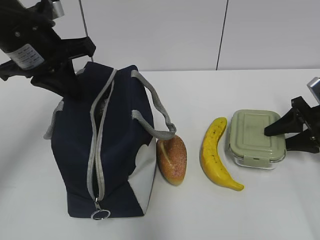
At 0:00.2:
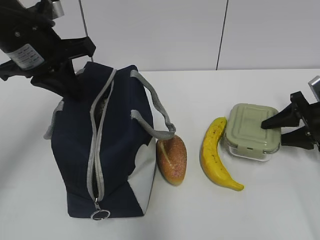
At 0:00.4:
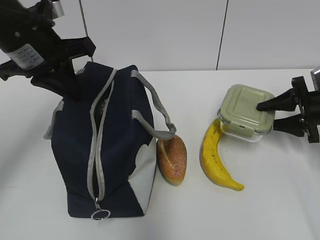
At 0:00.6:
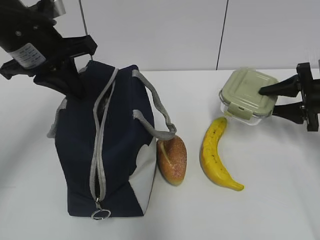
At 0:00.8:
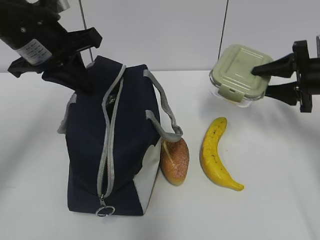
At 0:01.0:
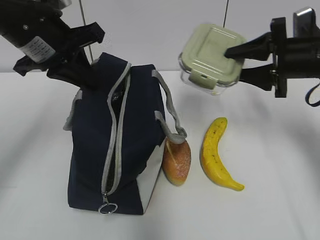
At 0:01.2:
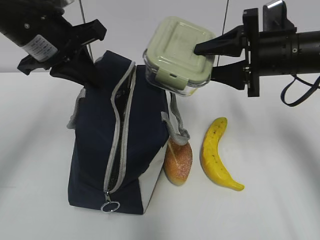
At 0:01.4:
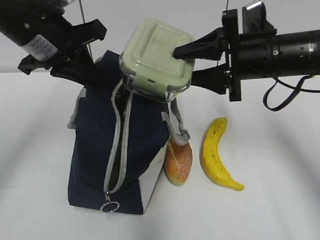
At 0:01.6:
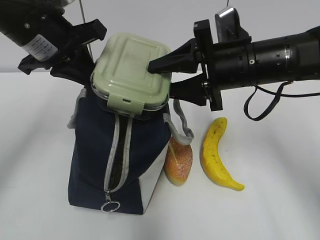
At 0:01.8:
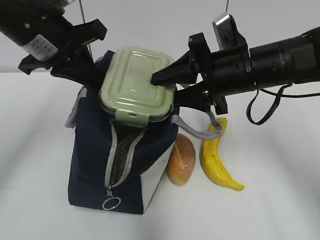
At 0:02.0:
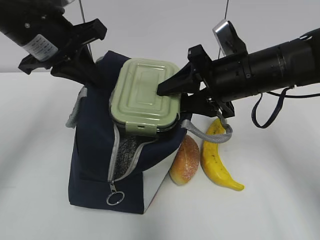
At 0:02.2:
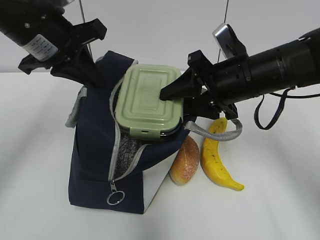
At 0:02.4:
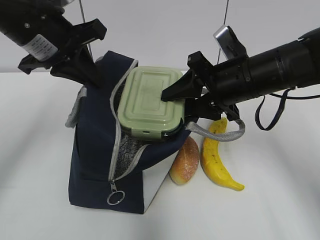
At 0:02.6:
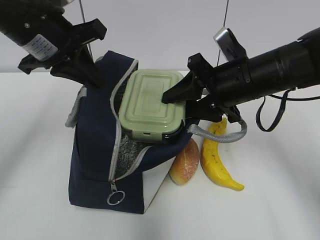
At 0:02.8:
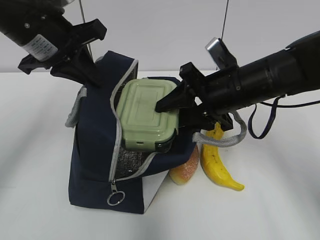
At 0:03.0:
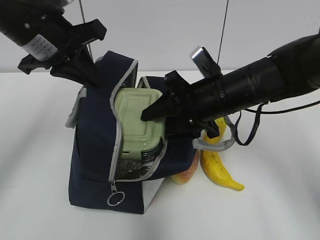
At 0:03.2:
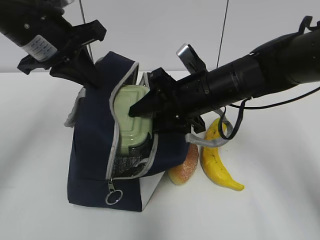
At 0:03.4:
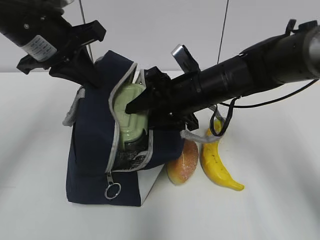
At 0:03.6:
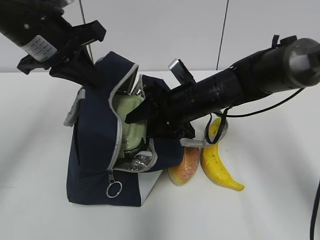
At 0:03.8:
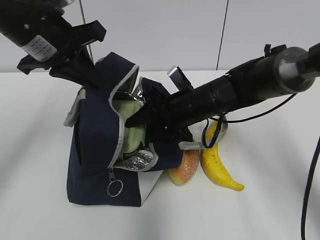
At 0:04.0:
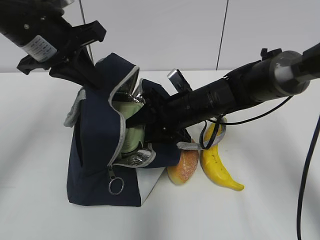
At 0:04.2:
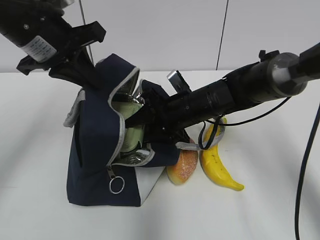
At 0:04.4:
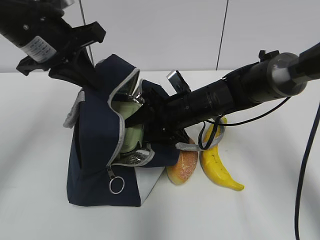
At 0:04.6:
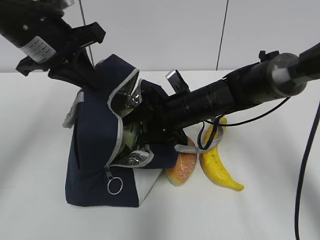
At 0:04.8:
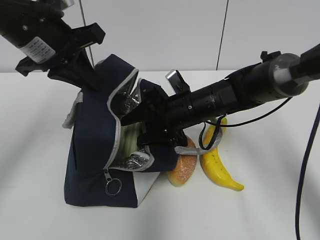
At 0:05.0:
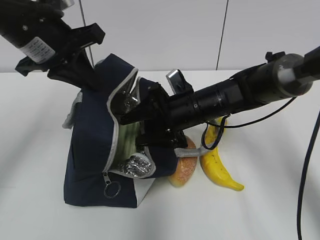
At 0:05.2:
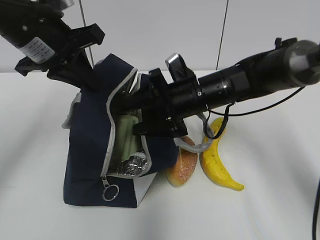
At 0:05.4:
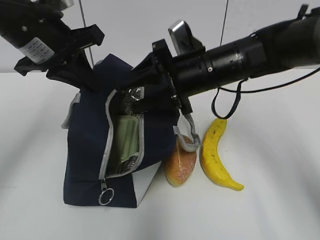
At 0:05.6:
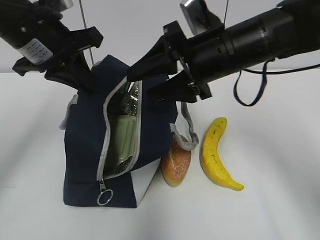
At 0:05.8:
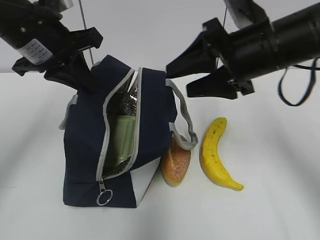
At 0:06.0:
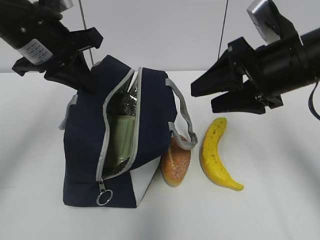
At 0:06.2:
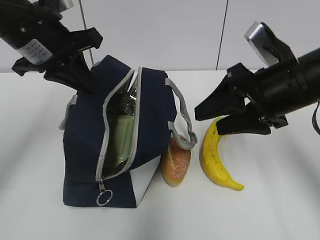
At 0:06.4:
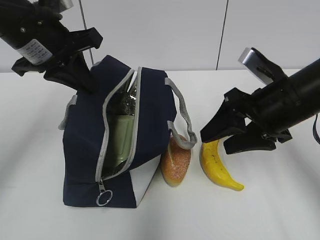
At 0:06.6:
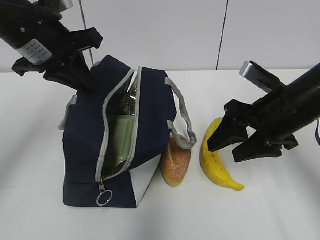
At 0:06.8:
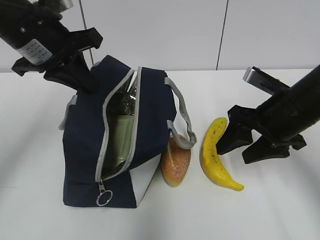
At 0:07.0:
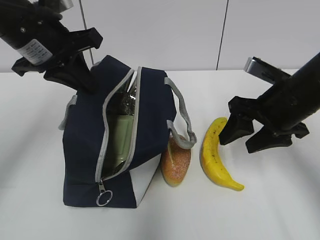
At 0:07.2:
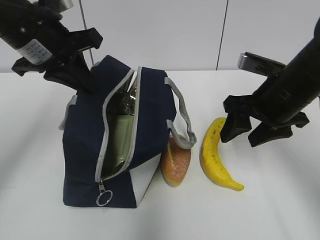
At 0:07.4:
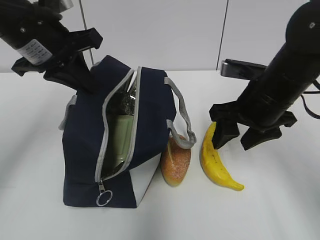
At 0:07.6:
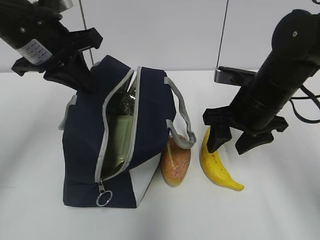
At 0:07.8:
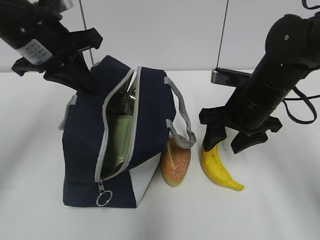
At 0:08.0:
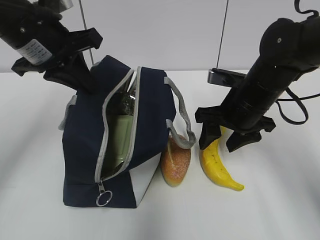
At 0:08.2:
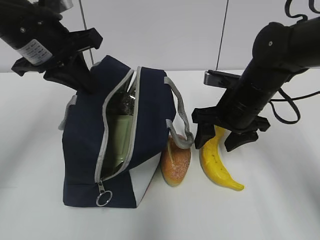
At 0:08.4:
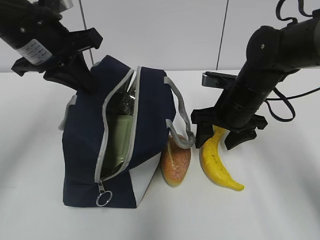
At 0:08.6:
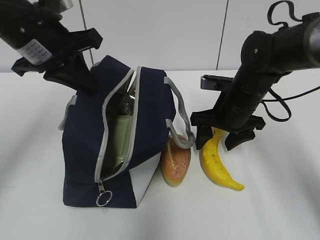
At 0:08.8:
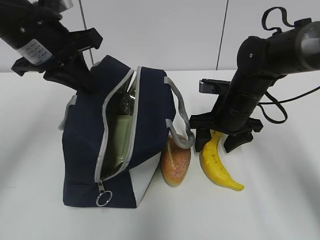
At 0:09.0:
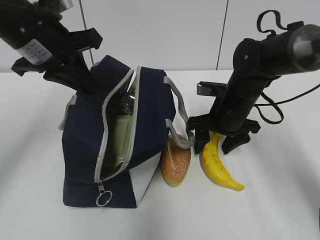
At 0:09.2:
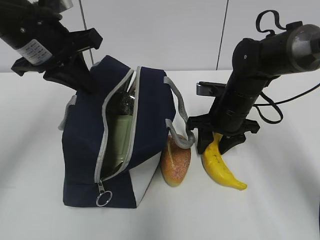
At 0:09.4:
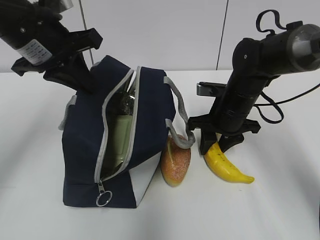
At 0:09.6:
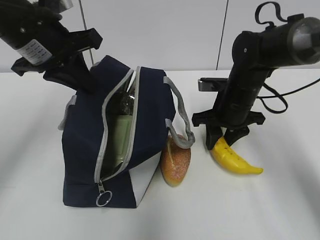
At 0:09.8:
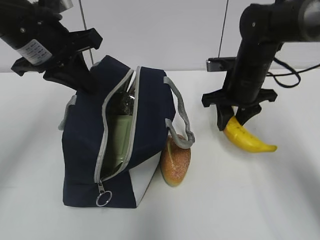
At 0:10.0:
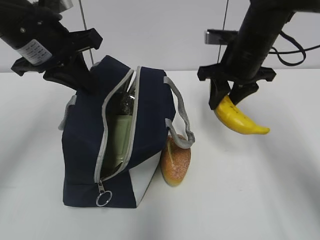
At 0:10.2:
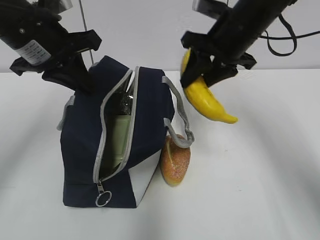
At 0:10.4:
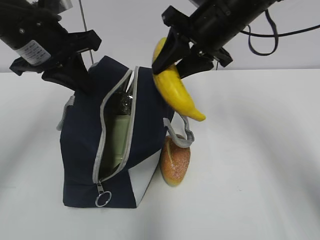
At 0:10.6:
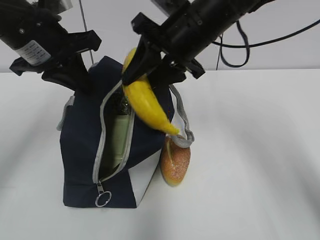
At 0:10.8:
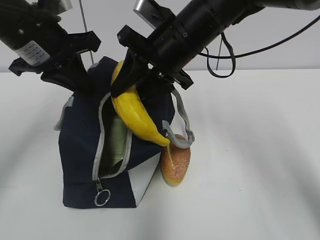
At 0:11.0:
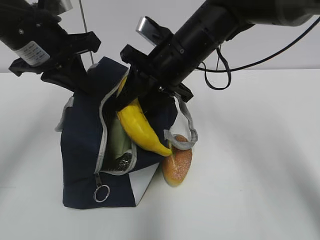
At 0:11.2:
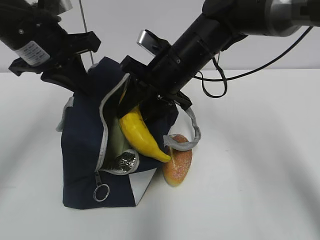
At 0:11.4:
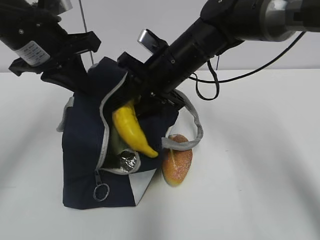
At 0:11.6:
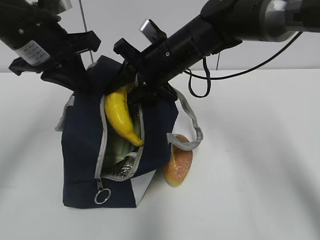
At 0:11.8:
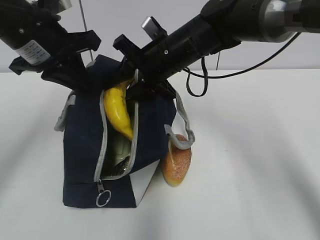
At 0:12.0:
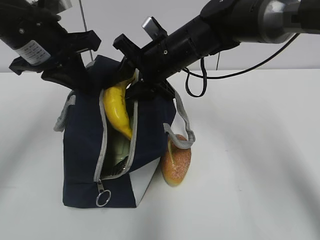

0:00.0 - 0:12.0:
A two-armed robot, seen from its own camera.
0:00.0 - 0:01.6: The right gripper heads to the left and upward, covering about 25 cm.
0:01.6 - 0:03.0: The right gripper changes place by roughly 5 cm.
0:03.0 - 0:04.4: The right gripper travels downward and forward by about 10 cm.
0:04.4 - 0:06.0: The right gripper travels upward, to the right and backward by roughly 20 cm.
0:06.0 - 0:07.6: The right gripper goes approximately 10 cm downward.
0:07.6 - 0:09.0: The right gripper moves downward and forward, roughly 10 cm.
0:09.0 - 0:10.4: The right gripper moves upward, some 15 cm, and closes.
0:10.4 - 0:12.0: The right gripper shifts roughly 10 cm to the left and downward.

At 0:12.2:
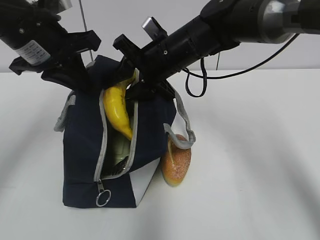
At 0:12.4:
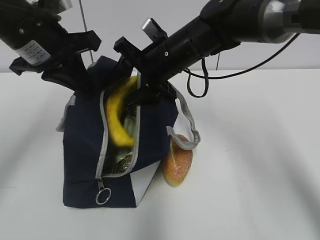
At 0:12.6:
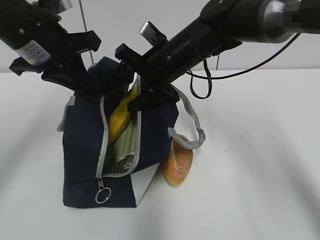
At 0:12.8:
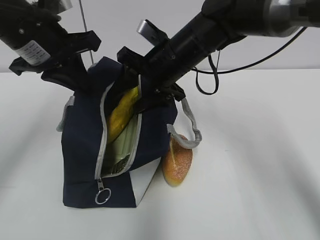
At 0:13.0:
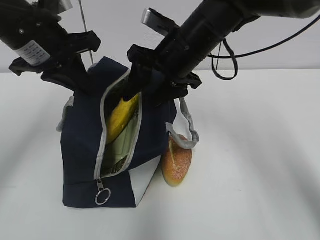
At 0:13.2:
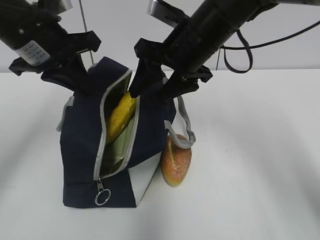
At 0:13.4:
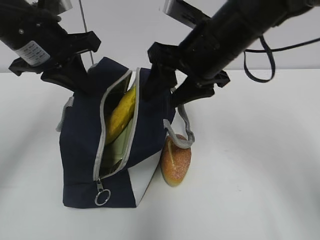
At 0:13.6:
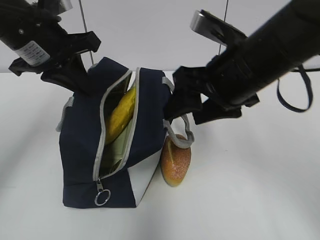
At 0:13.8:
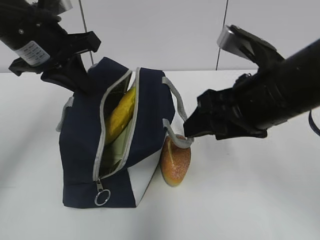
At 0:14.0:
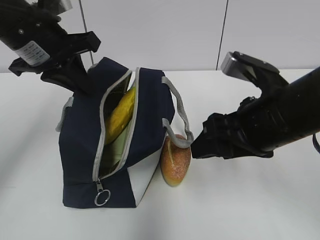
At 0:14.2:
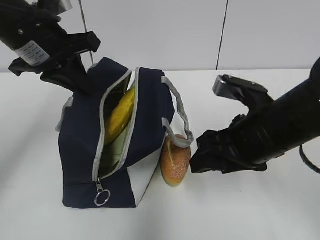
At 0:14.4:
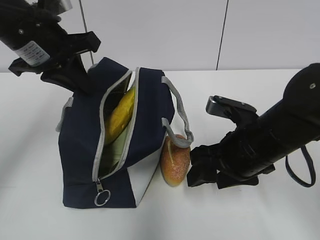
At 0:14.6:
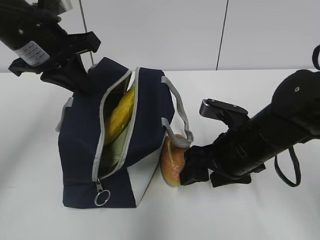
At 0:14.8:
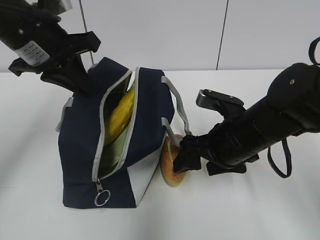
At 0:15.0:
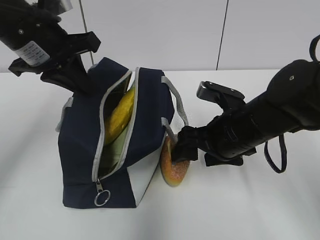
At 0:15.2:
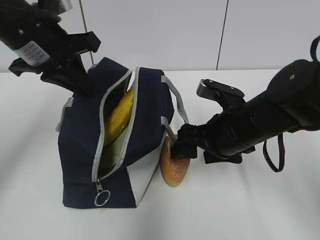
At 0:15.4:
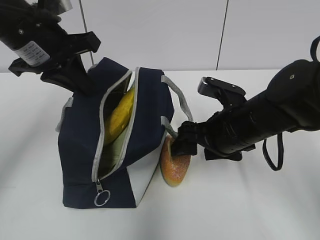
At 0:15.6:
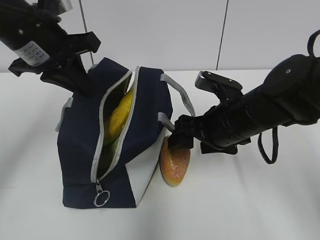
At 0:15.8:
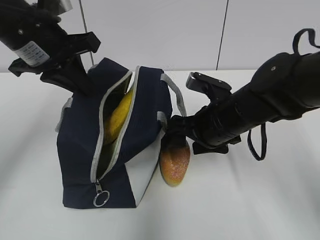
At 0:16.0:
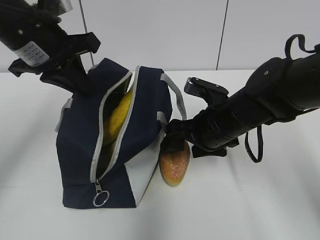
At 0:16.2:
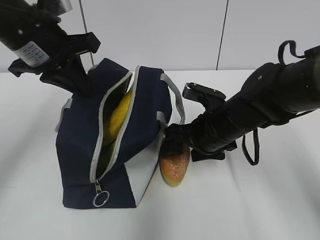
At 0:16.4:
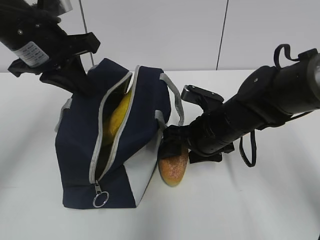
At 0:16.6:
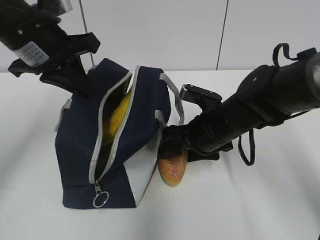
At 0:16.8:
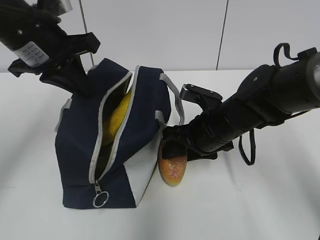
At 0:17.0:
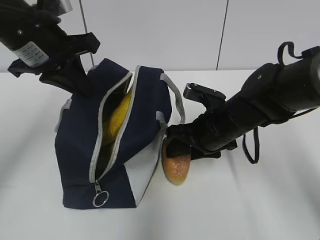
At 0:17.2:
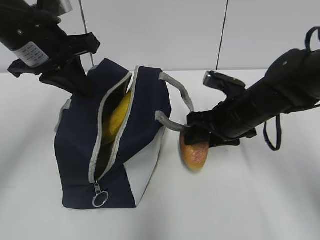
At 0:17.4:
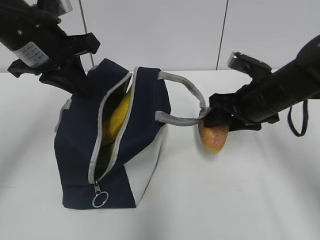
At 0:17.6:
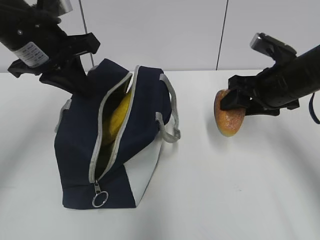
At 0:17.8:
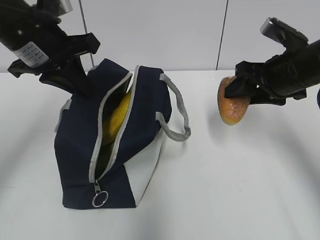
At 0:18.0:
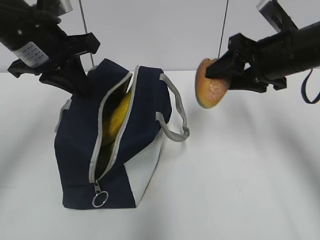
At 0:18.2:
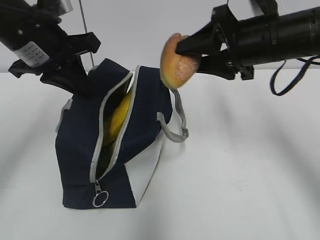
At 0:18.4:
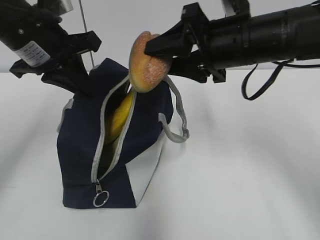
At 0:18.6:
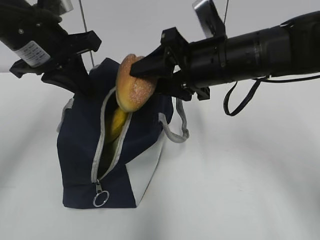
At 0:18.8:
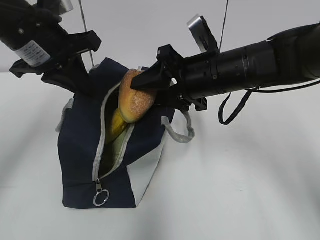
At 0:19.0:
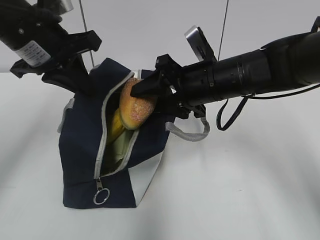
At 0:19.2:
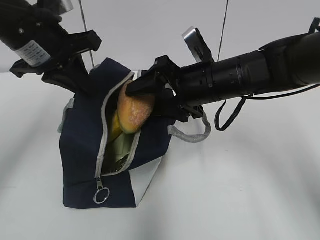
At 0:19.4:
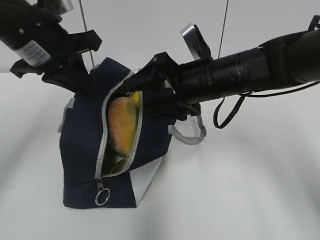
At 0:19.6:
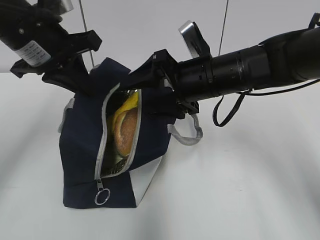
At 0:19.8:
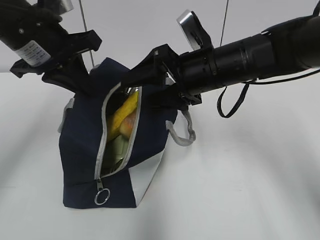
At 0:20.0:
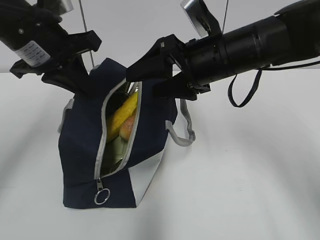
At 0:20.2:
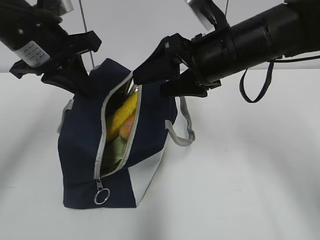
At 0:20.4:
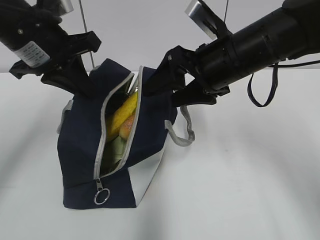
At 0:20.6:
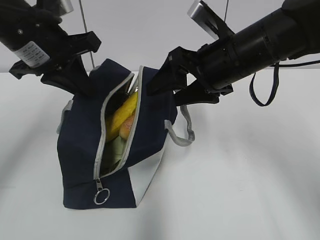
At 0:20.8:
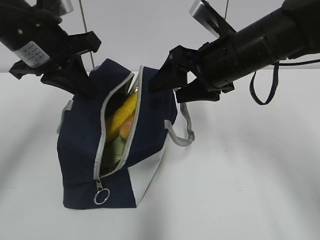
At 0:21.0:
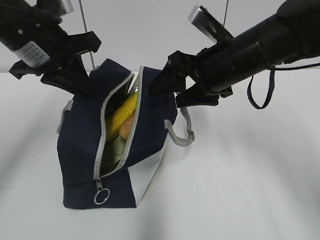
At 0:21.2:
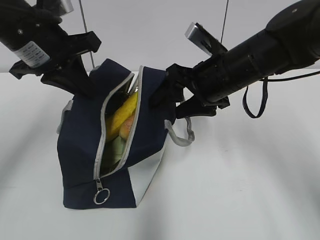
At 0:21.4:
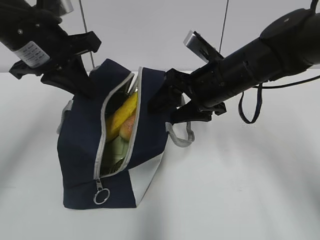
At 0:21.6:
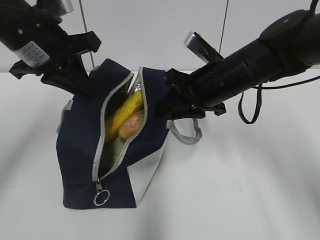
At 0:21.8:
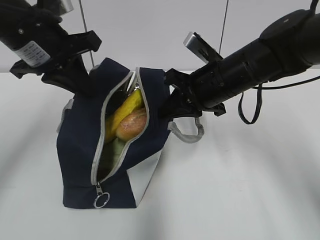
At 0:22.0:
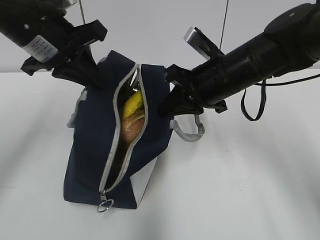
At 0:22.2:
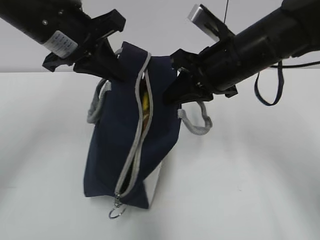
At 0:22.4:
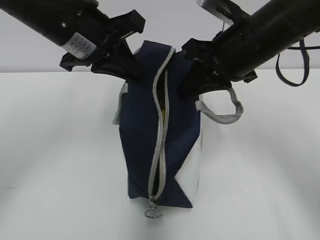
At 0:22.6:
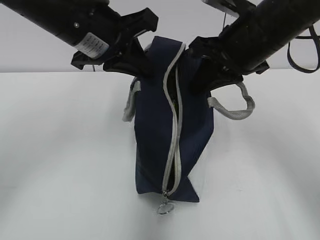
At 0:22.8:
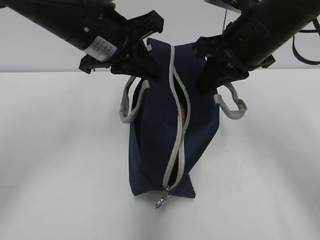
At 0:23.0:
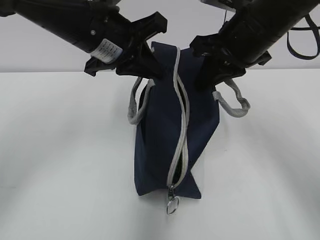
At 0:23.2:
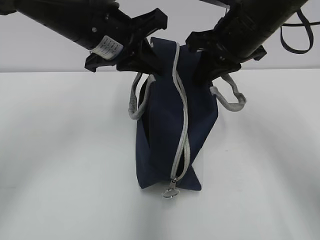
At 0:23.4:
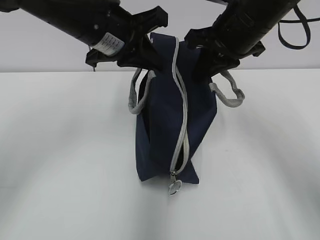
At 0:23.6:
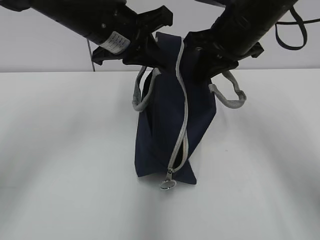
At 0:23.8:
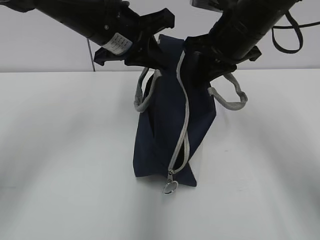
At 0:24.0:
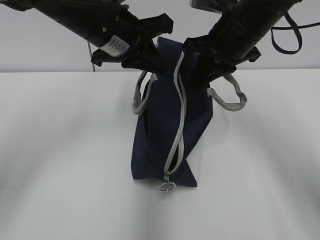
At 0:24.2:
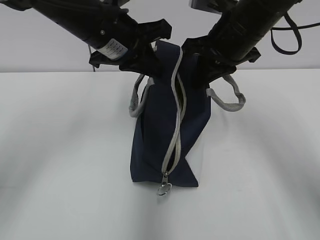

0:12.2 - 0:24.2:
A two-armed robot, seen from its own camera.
0:12.2 - 0:13.8: The right gripper heads backward and to the right, covering roughly 20 cm.
0:13.8 - 0:15.2: The right gripper moves downward, approximately 10 cm.
0:15.2 - 0:16.6: The right gripper changes place by some 5 cm.
0:16.6 - 0:18.2: The right gripper goes approximately 15 cm upward and to the right.
0:18.2 - 0:19.8: The right gripper heads to the left, covering some 5 cm, and opens up.
0:19.8 - 0:21.2: There are only small adjustments of the grippers.
0:21.2 - 0:22.6: The right gripper heads upward, covering some 5 cm, and closes, while the left gripper heads to the right, covering approximately 5 cm.
0:22.6 - 0:24.2: The right gripper changes place by approximately 5 cm.
